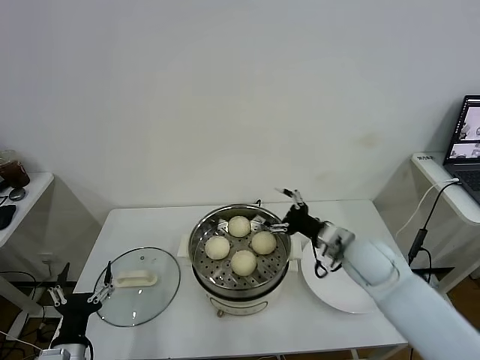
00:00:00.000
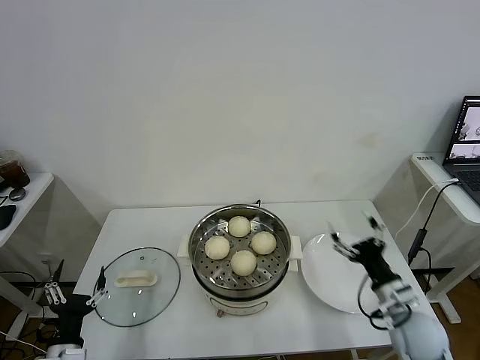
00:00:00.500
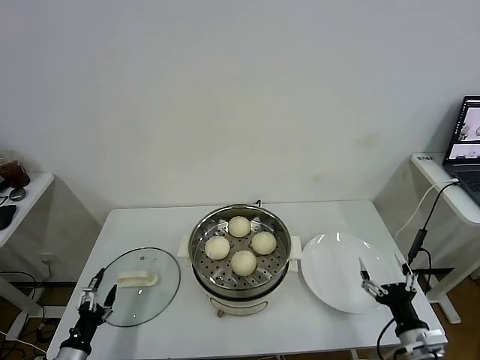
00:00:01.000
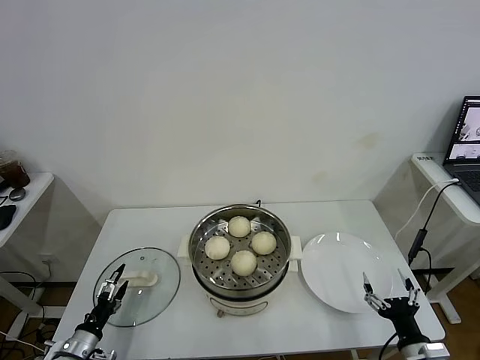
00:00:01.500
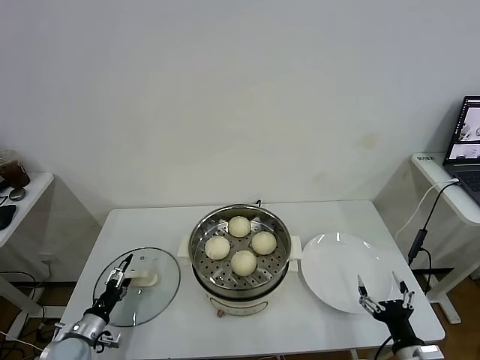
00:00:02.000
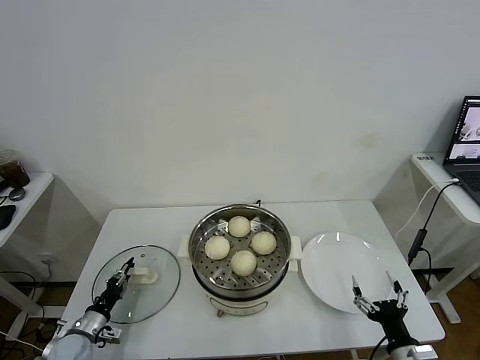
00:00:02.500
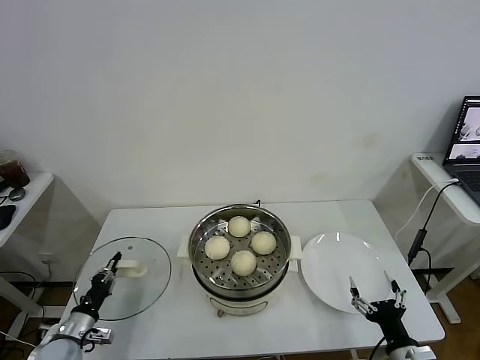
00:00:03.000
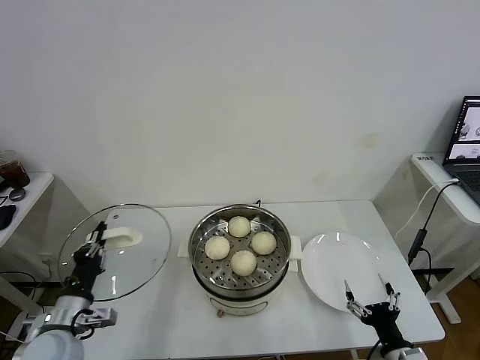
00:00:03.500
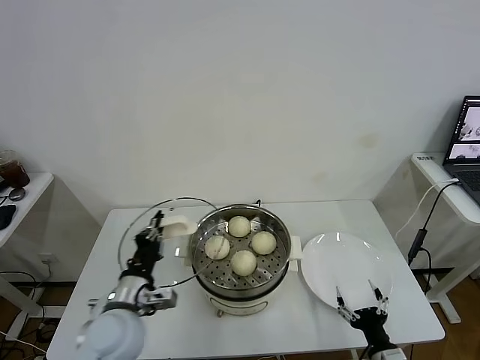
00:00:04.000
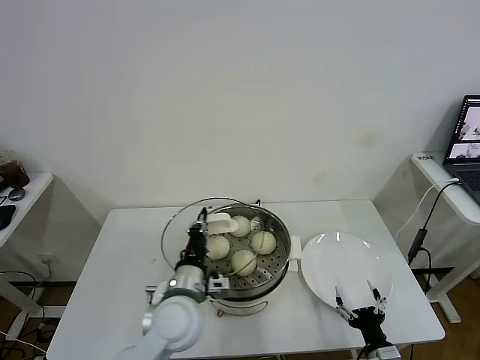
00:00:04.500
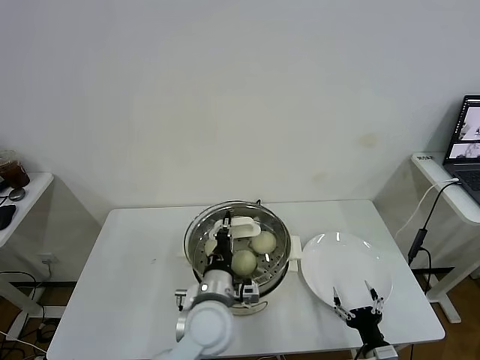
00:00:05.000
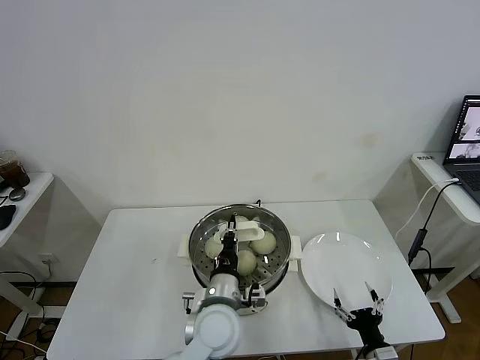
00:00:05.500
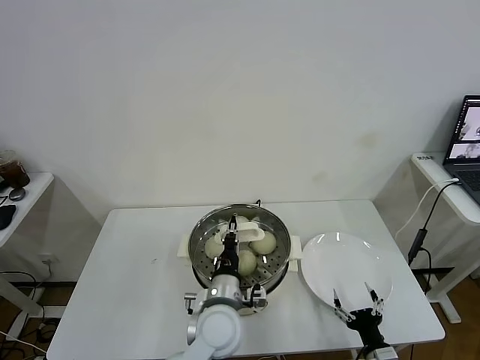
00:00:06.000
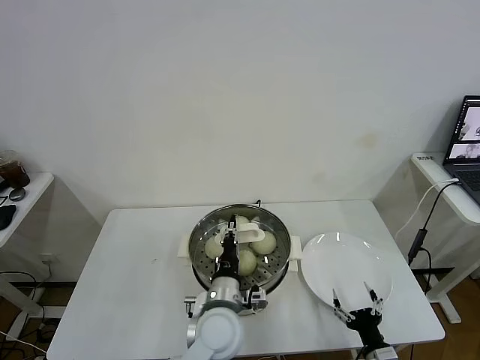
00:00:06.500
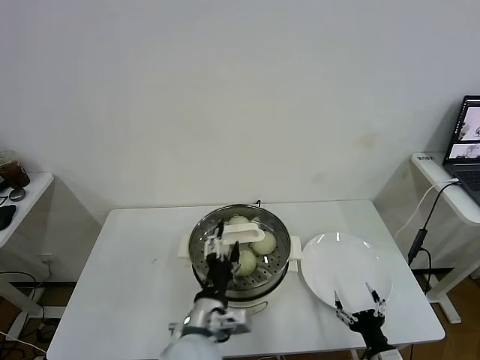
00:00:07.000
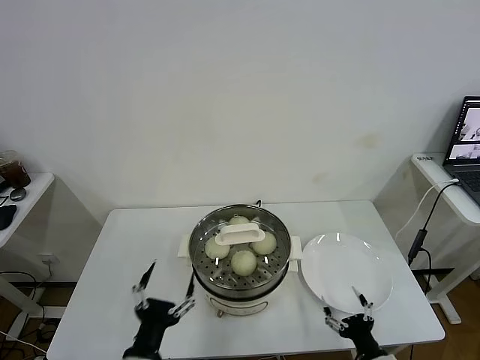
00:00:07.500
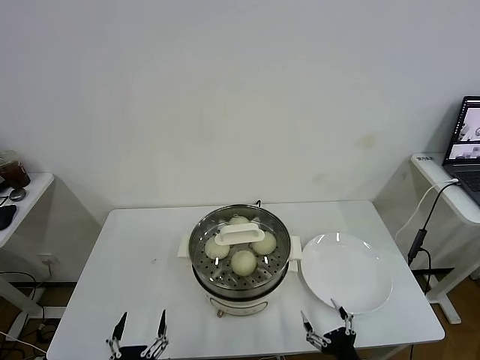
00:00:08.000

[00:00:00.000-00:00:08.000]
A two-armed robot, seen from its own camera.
Task of the whole recording: take steamed baozi put them in steamer.
Step, 00:00:00.000 to 00:00:02.500: Grasp the pot lid with left gripper.
Step, 00:00:03.000 to 00:00:07.000: Place the pot lid on the steamer with left gripper.
00:00:00.000 to 00:00:02.000: The right gripper heads backward, downward and to the right, covering about 30 cm. The left gripper travels downward, forward and to the left by roughly 15 cm.
00:00:02.000 to 00:00:04.000: The left gripper heads upward and to the right, covering about 30 cm, and closes.
00:00:04.000 to 00:00:06.000: The left gripper travels to the right by about 20 cm.
00:00:06.000 to 00:00:08.000: The left gripper travels backward and to the left by about 30 cm, and opens up; the right gripper ends up about 5 cm from where it was.

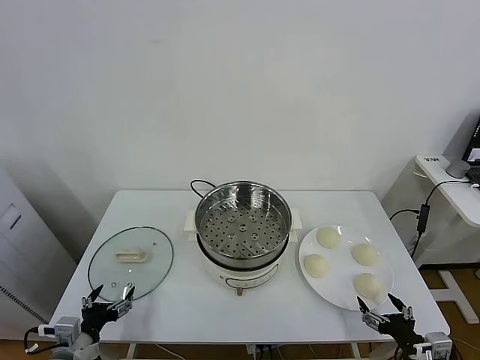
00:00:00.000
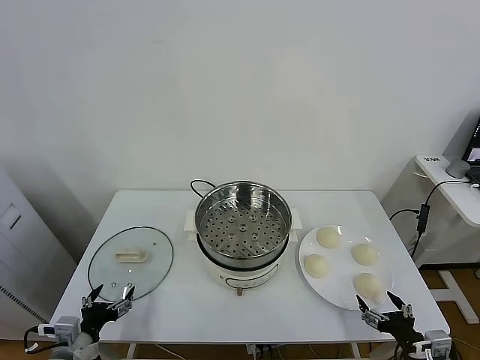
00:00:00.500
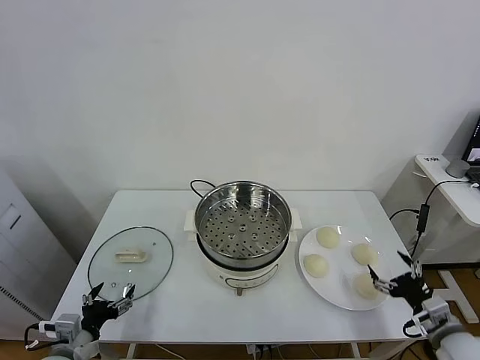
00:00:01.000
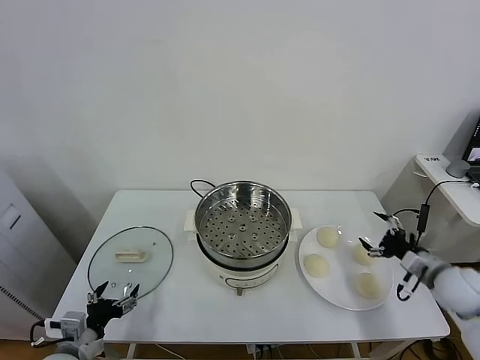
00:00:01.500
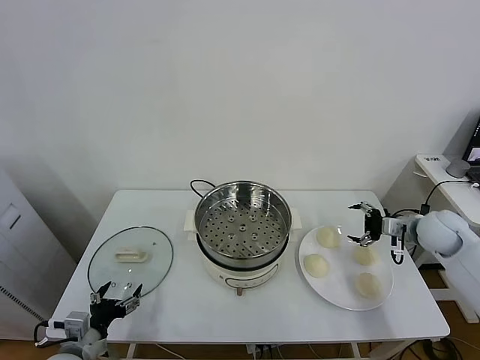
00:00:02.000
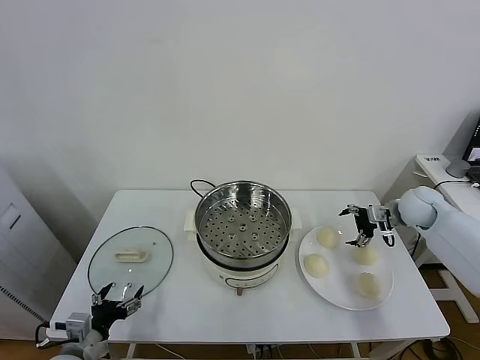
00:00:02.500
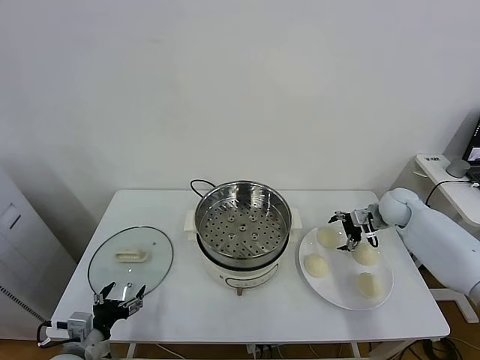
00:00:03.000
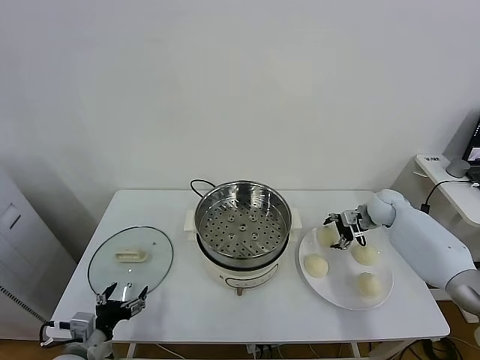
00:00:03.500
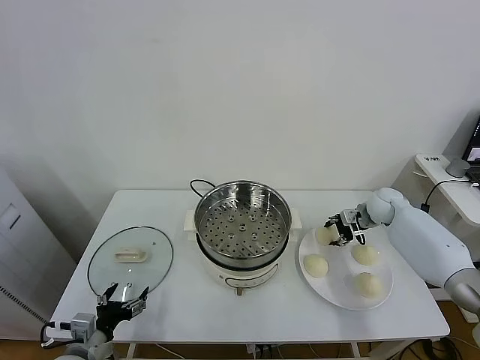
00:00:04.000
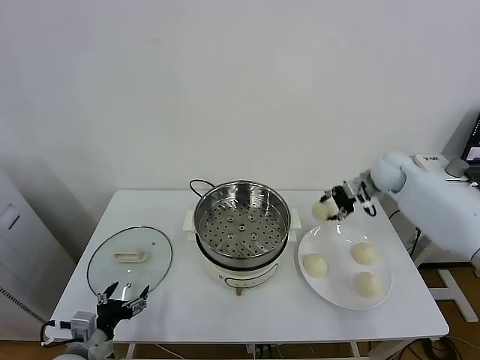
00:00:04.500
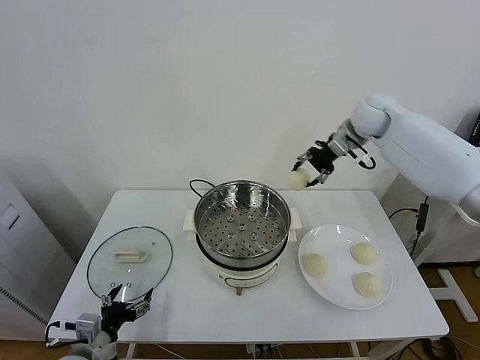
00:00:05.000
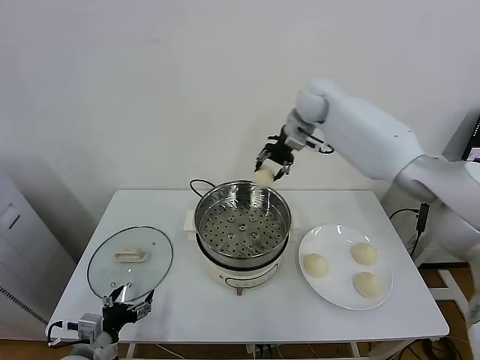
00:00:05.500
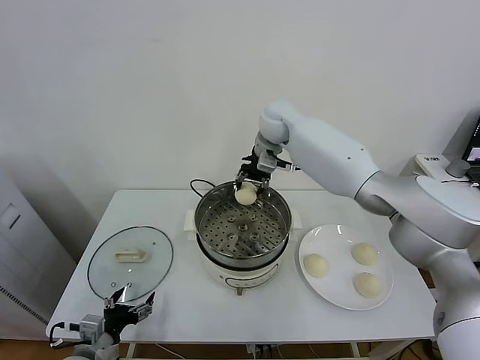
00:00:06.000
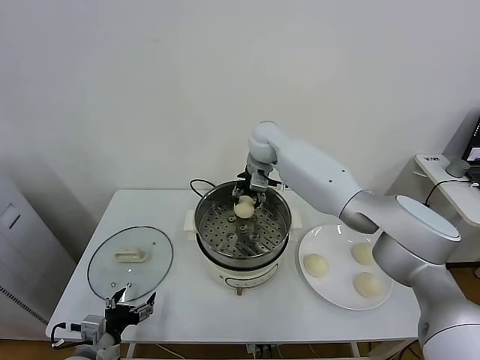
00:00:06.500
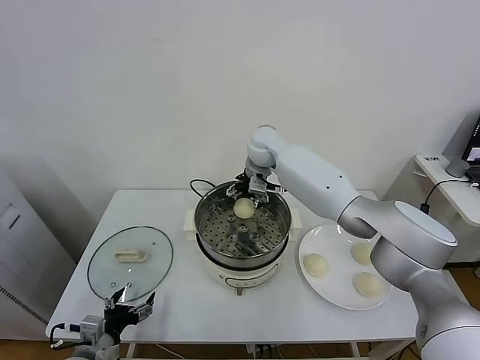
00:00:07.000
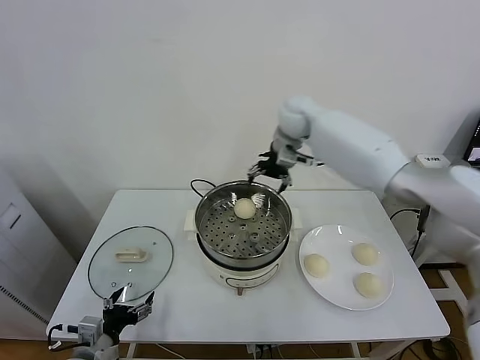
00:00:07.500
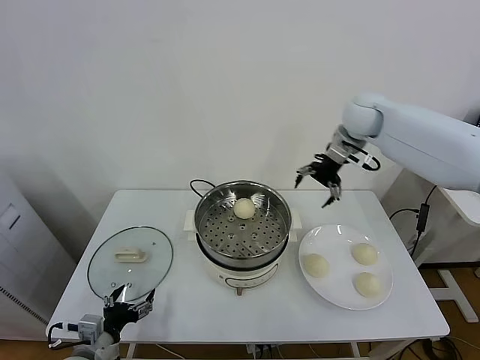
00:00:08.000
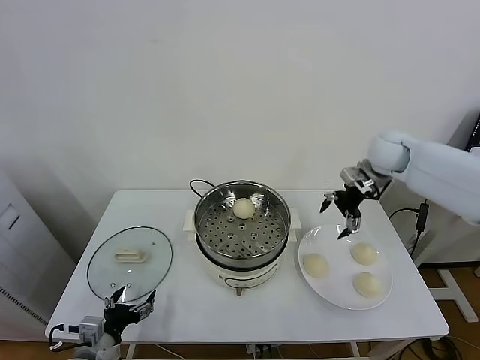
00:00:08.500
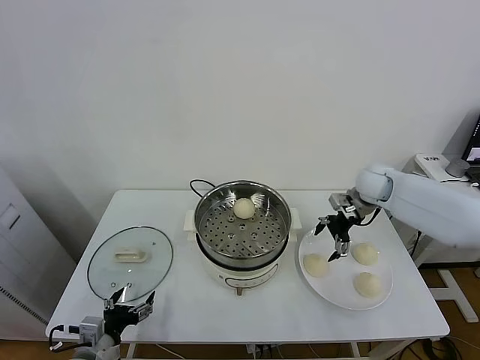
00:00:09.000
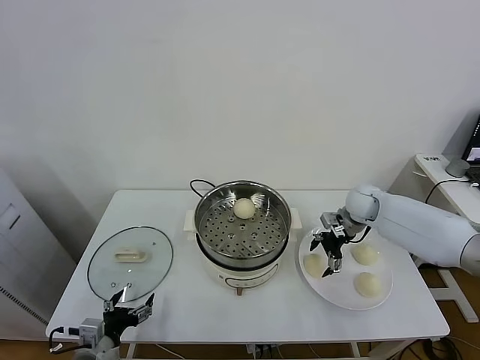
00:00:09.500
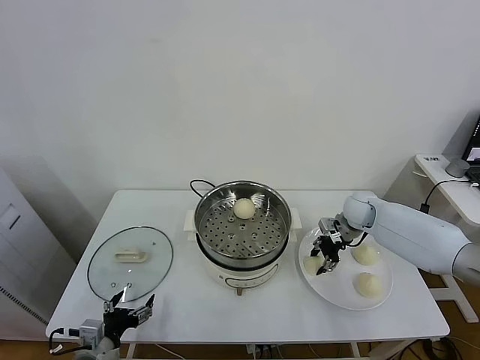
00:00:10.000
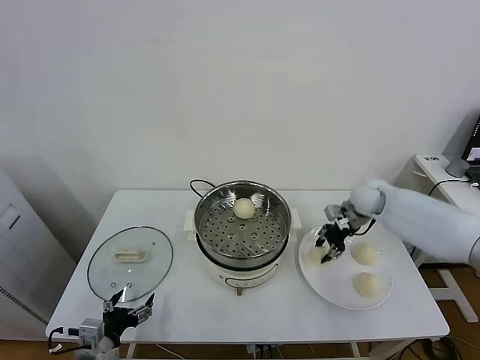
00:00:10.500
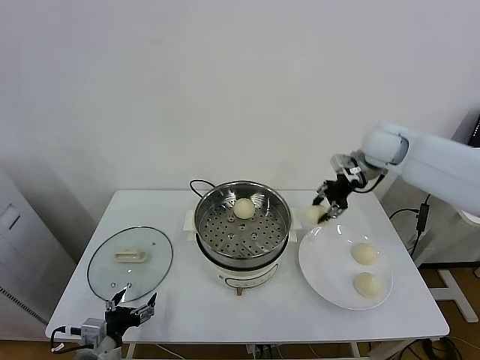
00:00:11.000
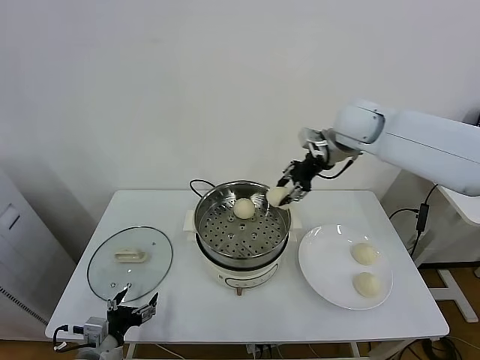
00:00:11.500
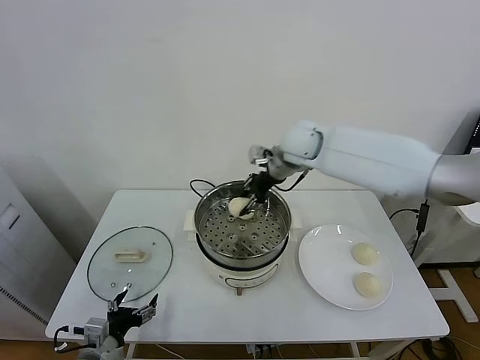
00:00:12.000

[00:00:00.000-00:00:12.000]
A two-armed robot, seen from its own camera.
Task of the whole recording: take steamed baozi put them in steamer.
Step, 00:00:00.000 to 00:00:03.500: Grasp the baozi in the plate with right gripper.
Step, 00:00:04.000 to 00:00:07.000: Place the baozi on the steamer with right gripper.
Step, 00:00:07.500 to 00:00:09.500: Grasp the baozi in the plate with right gripper.
00:00:02.000 to 00:00:04.000: The right gripper shifts about 15 cm forward and to the left, and closes up.
00:00:04.000 to 00:00:06.000: The right gripper moves to the left and upward, approximately 40 cm.
00:00:06.000 to 00:00:08.000: The right gripper is displaced to the right by about 20 cm, and opens.
00:00:08.000 to 00:00:10.000: The right gripper shifts about 25 cm downward, and closes.
00:00:10.000 to 00:00:12.000: The right gripper heads upward and to the left, covering approximately 30 cm.

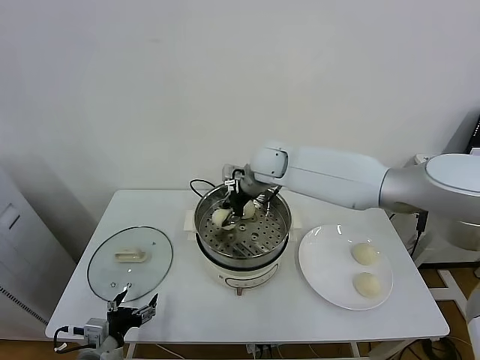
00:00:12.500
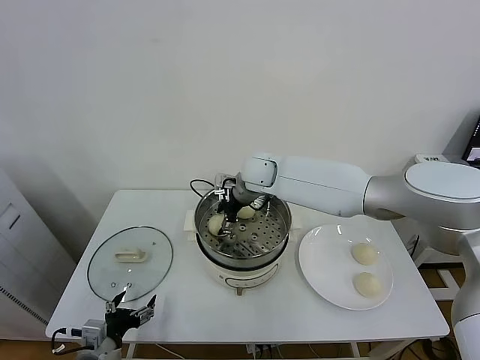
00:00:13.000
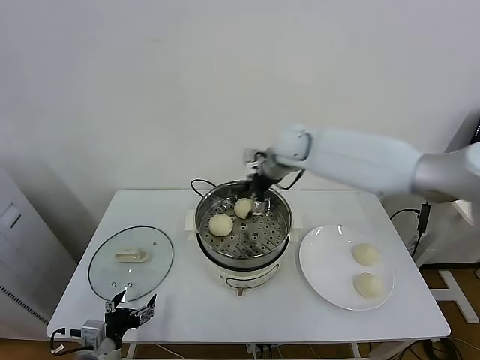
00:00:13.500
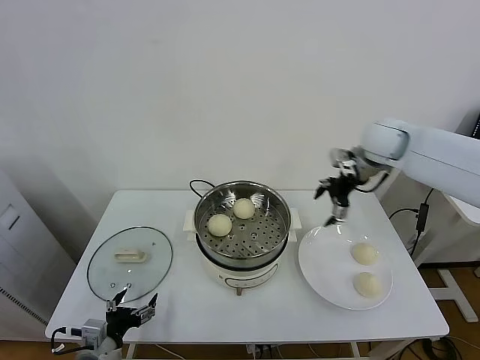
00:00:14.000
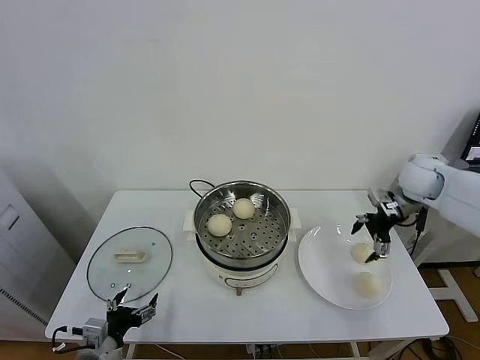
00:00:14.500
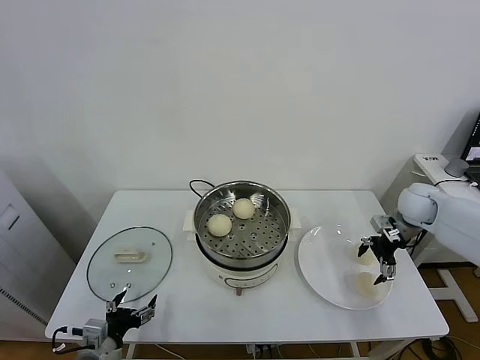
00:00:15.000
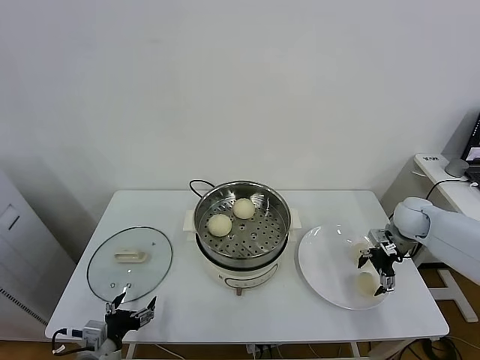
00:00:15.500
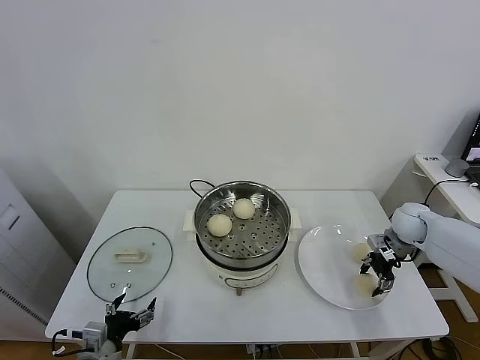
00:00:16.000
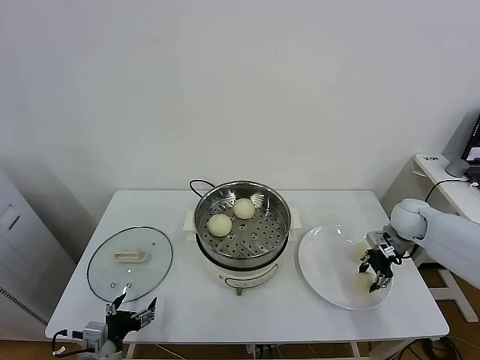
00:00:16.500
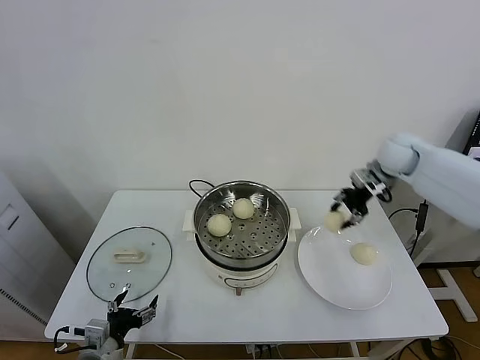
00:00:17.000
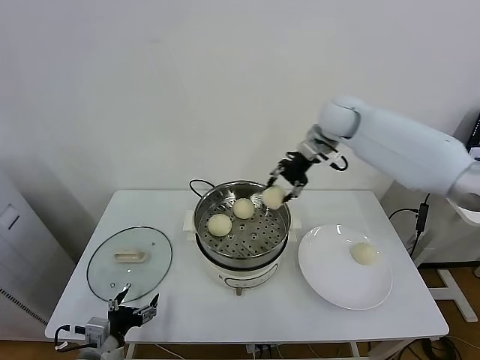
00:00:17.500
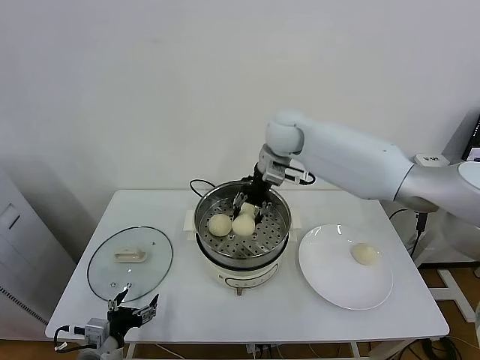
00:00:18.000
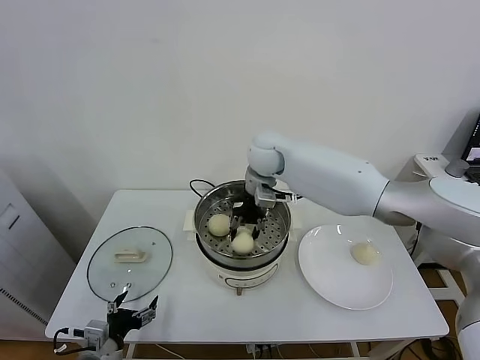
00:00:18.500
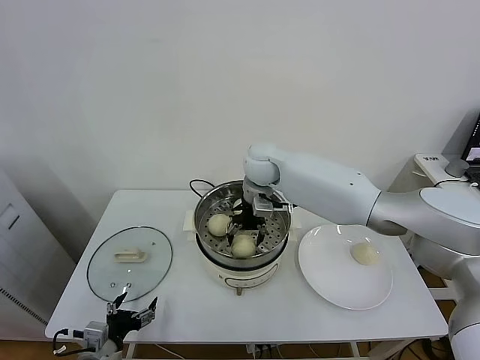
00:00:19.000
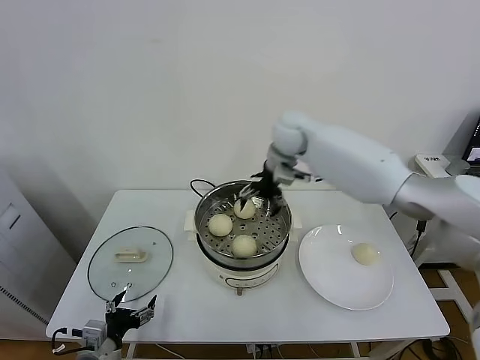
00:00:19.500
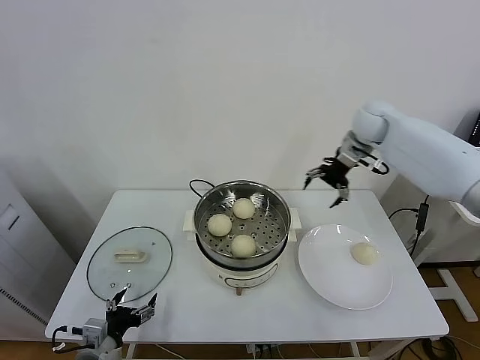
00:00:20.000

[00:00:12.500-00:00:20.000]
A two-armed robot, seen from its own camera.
Task of the whole recording: take steamed baozi put them in steamer.
Step, 00:00:13.500 to 00:00:16.000: Grasp the baozi in the plate with right gripper.
Step, 00:00:16.500 to 00:00:19.000: Place the baozi on the steamer with right gripper.
00:00:12.500 to 00:00:14.500: The right gripper heads to the right, covering roughly 35 cm, and opens.
00:00:14.500 to 00:00:16.500: The right gripper goes roughly 10 cm downward, and closes its fingers.
00:00:16.500 to 00:00:18.000: The right gripper is displaced to the left and upward by approximately 40 cm.
00:00:18.000 to 00:00:20.000: The right gripper shifts some 20 cm to the right, and opens.
